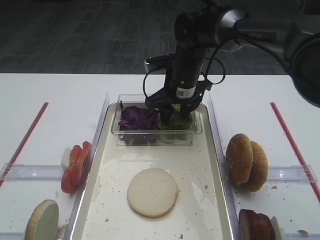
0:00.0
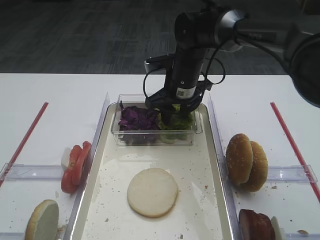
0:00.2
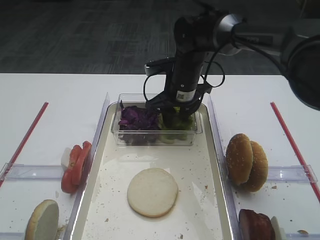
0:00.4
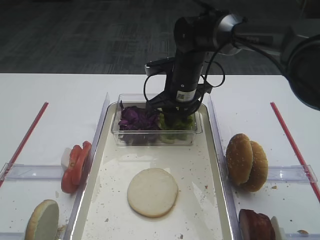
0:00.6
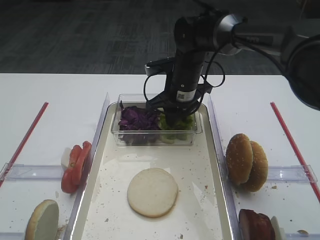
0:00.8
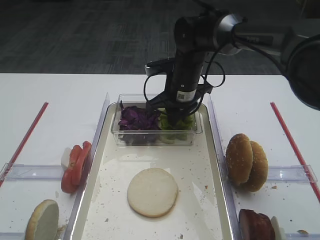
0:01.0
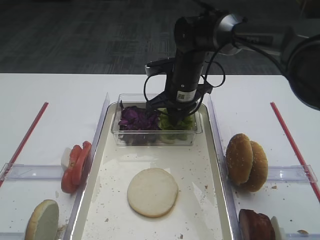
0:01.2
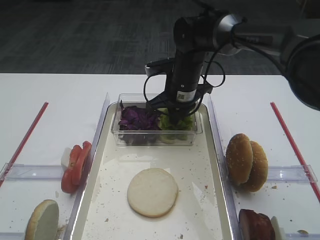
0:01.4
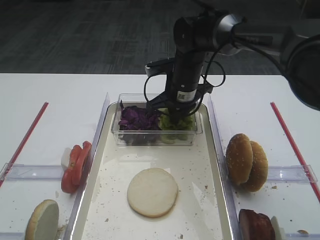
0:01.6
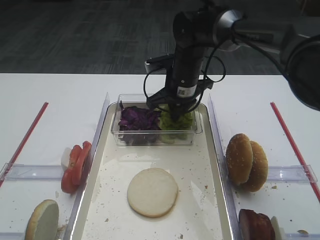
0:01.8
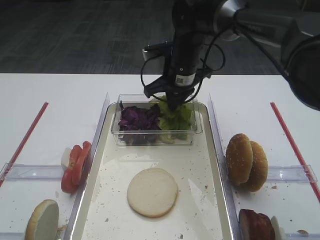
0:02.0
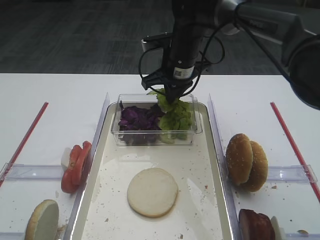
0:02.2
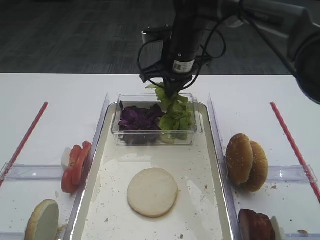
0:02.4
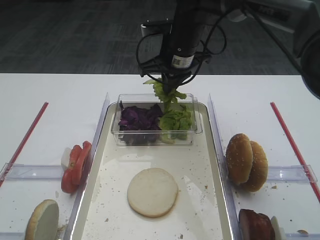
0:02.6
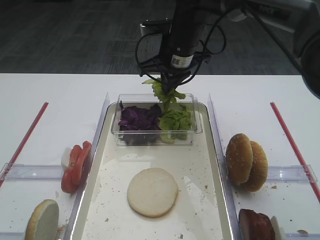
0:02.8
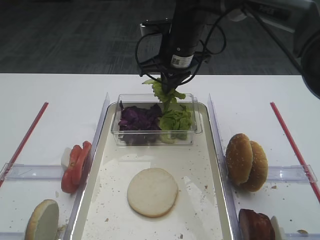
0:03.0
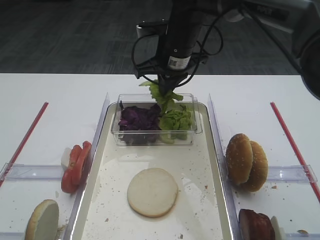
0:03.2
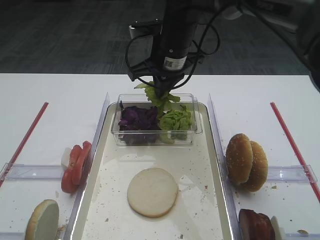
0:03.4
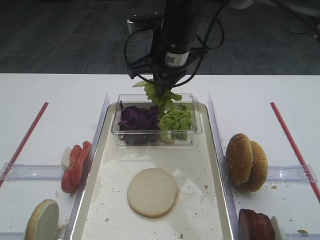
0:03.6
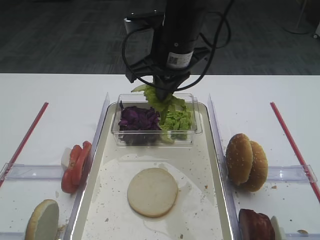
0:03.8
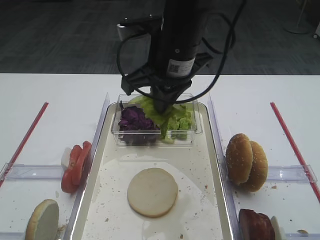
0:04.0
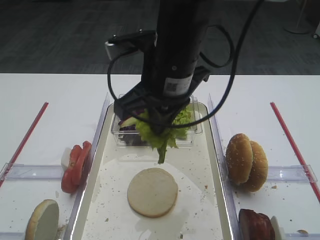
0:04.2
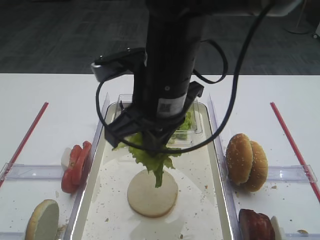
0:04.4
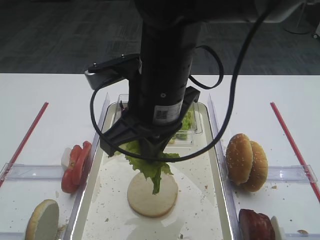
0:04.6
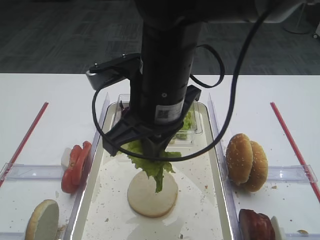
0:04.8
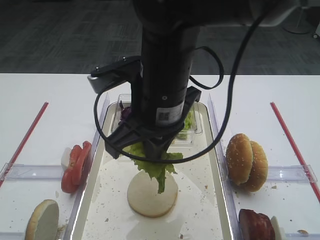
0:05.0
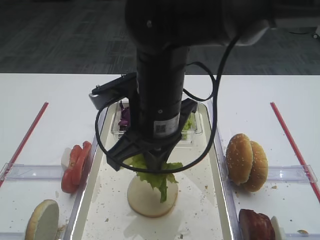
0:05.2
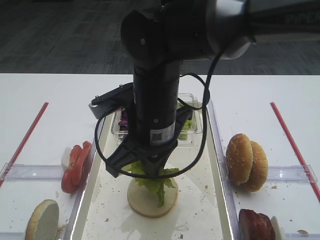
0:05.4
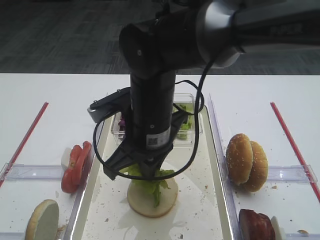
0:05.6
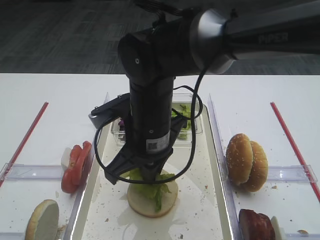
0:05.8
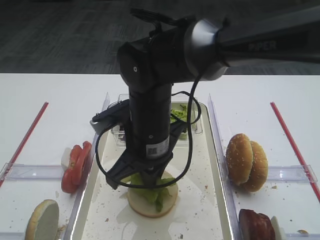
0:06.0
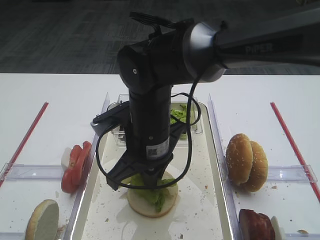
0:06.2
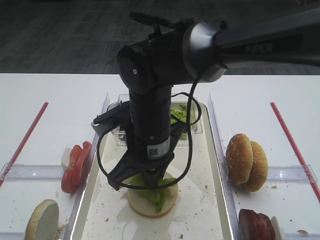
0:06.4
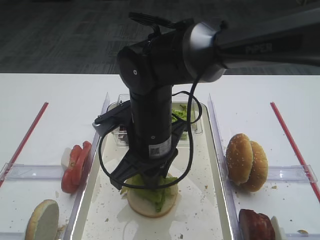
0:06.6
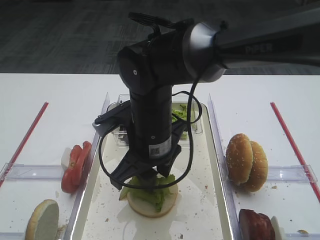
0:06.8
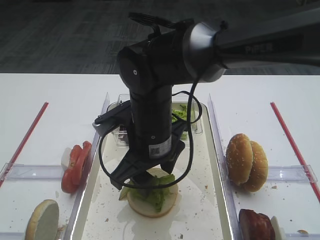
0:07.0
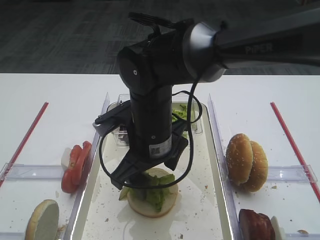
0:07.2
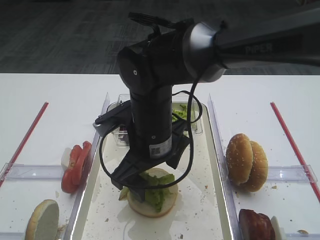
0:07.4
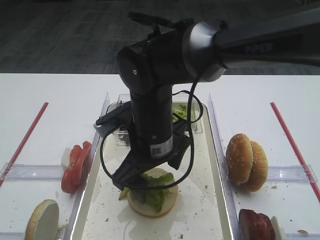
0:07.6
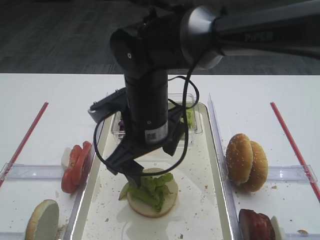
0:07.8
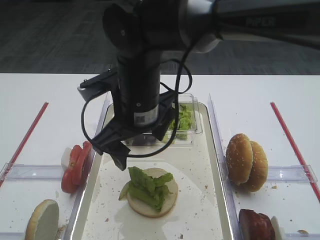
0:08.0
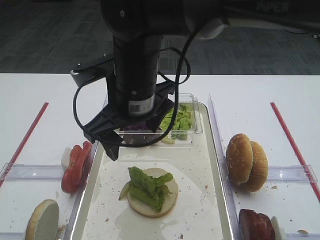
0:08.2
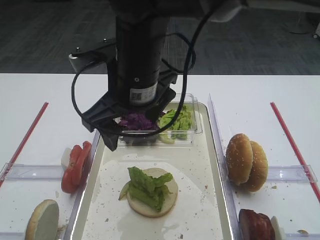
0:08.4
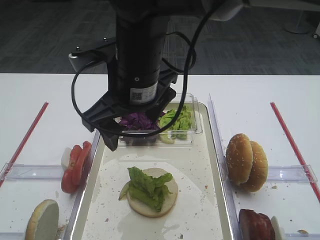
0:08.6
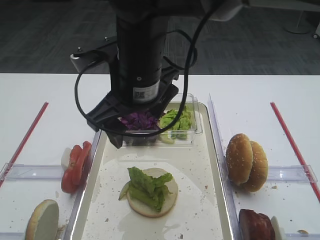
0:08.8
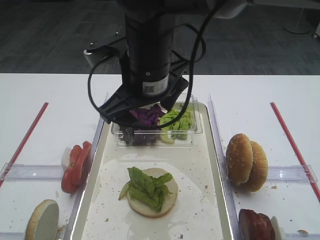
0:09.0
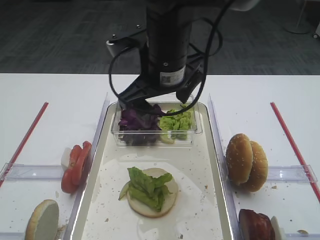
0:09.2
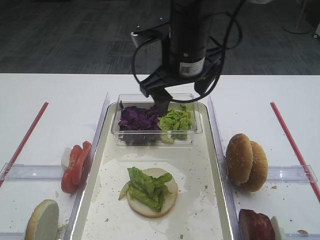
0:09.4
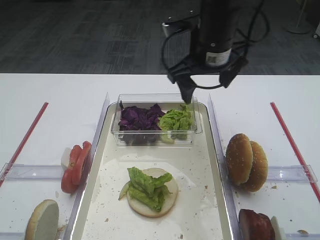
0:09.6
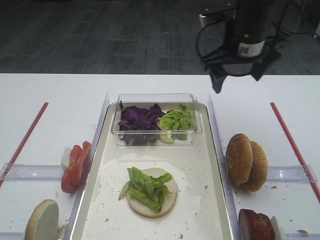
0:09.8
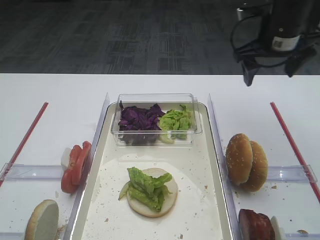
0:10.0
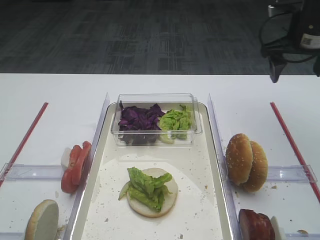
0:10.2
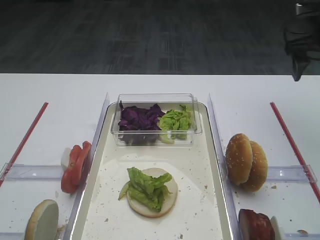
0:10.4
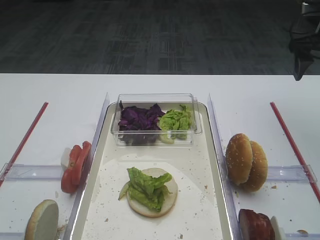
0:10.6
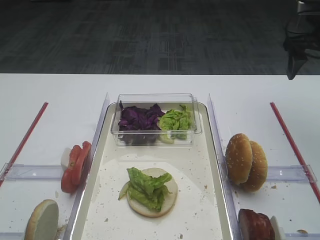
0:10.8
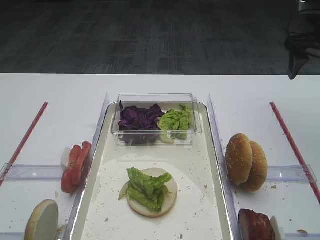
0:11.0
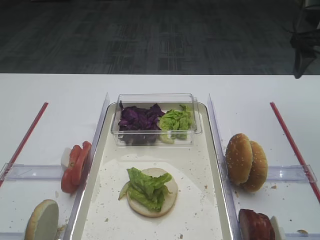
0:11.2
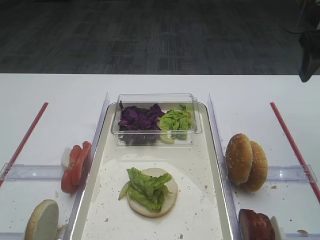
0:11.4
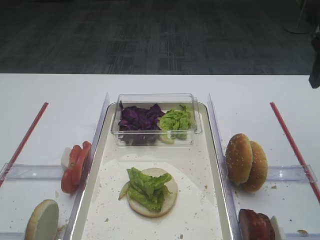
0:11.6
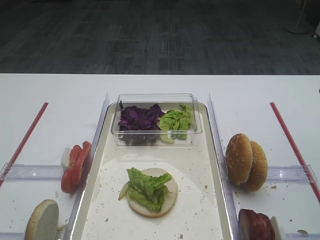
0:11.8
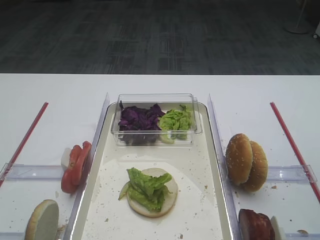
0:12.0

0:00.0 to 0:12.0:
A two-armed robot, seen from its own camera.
Step, 0:00.0 to 0:02.4: Pick up the lettuce leaf with the right gripper.
Step, 0:02.6 to 0:07.4: Place the lettuce leaf on the bread slice with the right gripper.
0:00.0 to 0:01.6: The right gripper closes its fingers.
0:01.6 to 0:03.0: The right gripper travels upward by roughly 10 cm.
0:03.0 to 0:04.4: The right gripper shifts approximately 20 cm backward.
0:04.4 to 0:06.0: The right gripper is displaced downward by roughly 10 cm.
0:06.0 to 0:07.6: The right gripper opens up.
0:07.6 to 0:09.0: The right gripper heads upward, covering about 10 cm.
0:09.0 to 0:10.4: The right gripper is displaced to the right by roughly 30 cm.
0:10.4 to 0:12.0: The right gripper moves backward, roughly 20 cm.

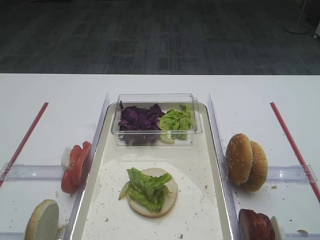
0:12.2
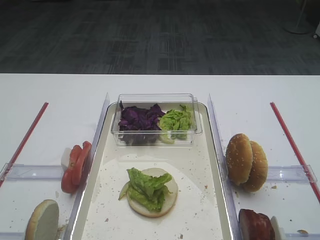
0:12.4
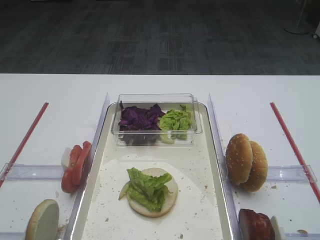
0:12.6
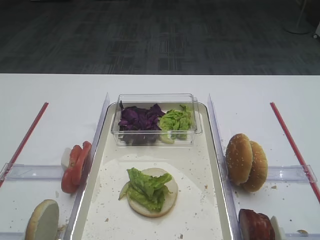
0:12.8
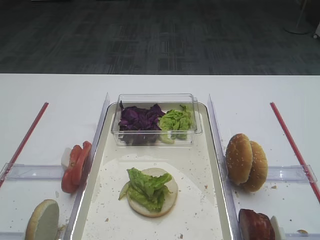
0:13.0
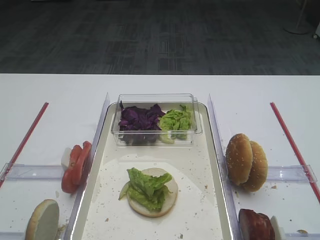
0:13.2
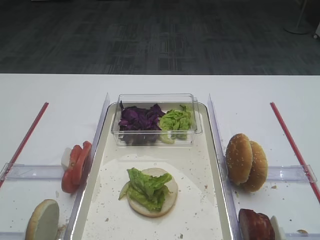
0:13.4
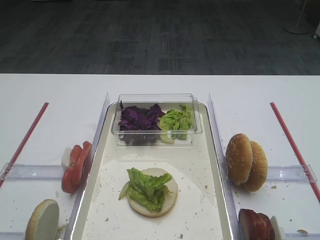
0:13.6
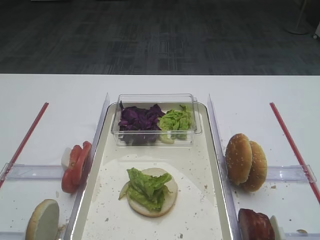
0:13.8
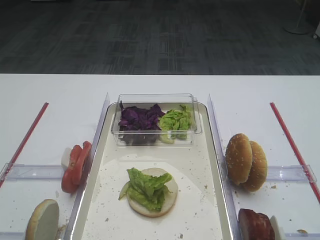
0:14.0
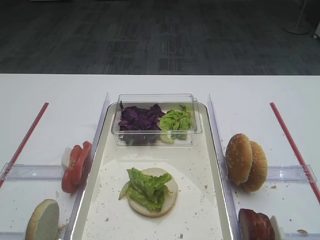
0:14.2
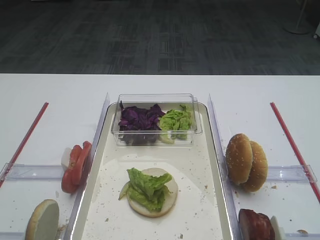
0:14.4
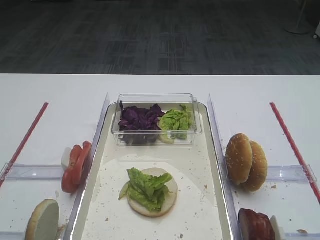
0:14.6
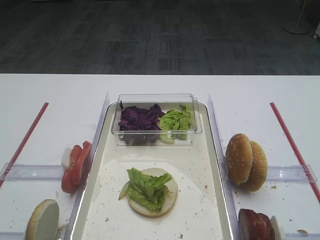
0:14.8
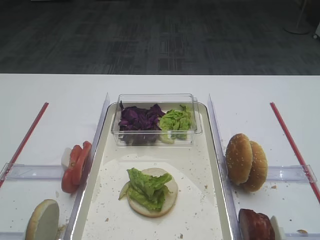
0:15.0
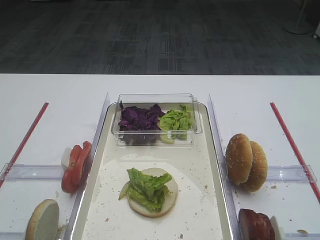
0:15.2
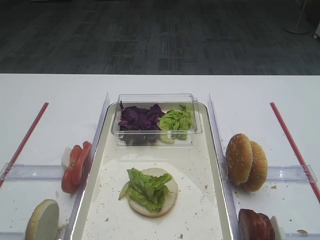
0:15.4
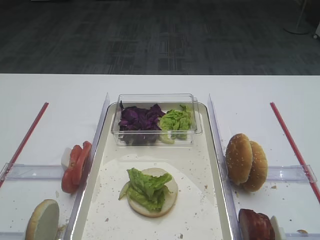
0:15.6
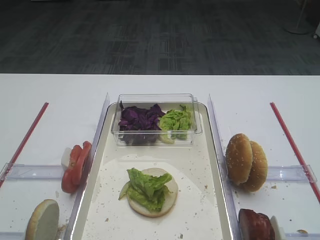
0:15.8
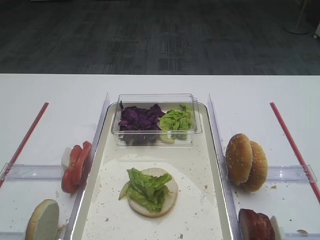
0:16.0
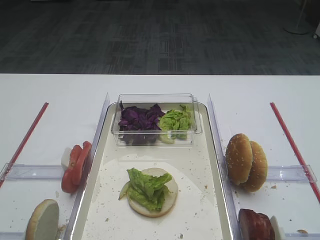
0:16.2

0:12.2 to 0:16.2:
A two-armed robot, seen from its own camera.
0:13.6 to 0:16.2: Both grippers stay about where they are.

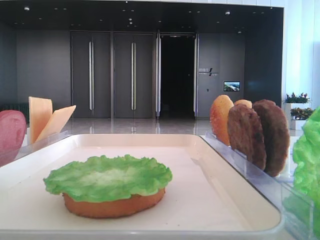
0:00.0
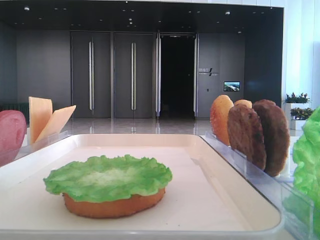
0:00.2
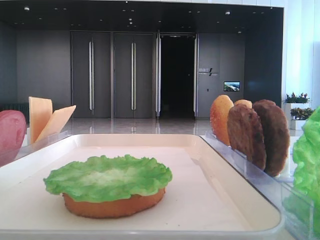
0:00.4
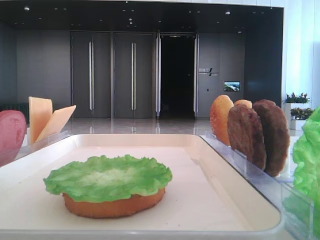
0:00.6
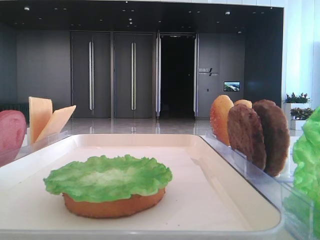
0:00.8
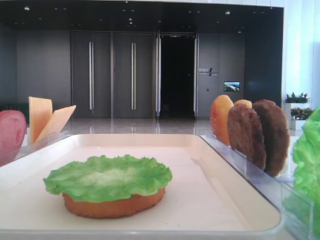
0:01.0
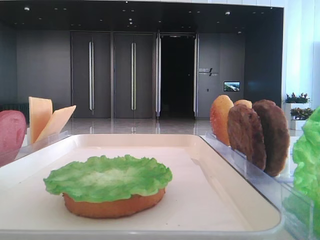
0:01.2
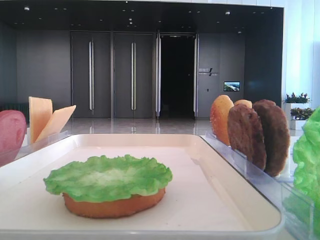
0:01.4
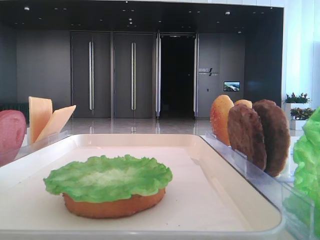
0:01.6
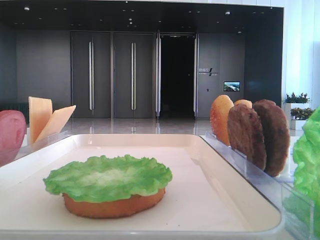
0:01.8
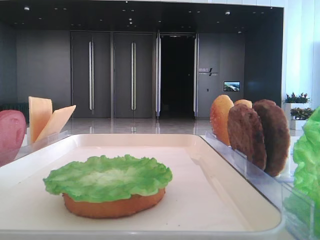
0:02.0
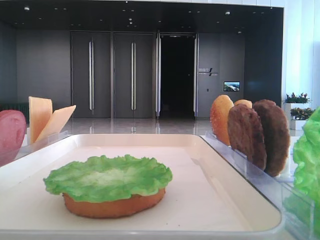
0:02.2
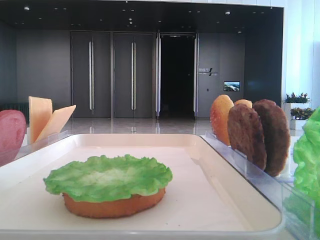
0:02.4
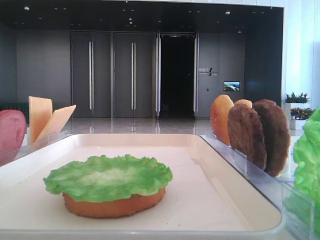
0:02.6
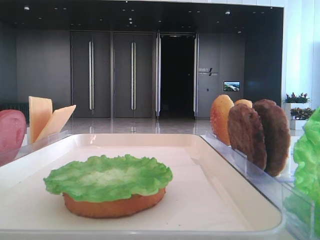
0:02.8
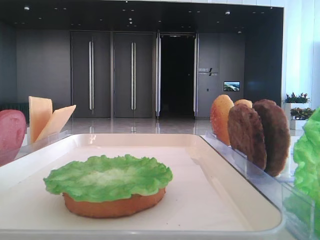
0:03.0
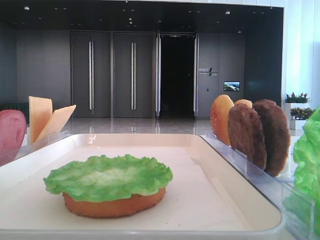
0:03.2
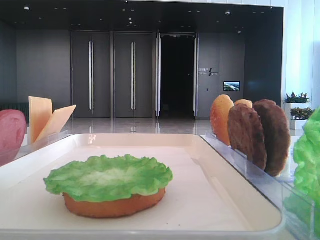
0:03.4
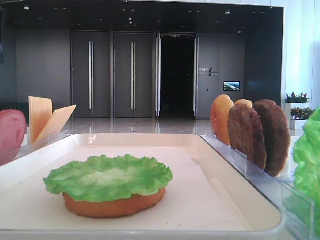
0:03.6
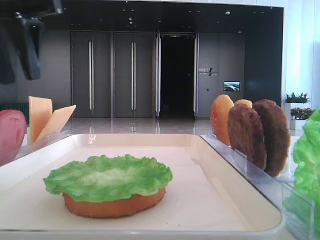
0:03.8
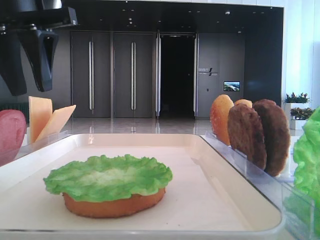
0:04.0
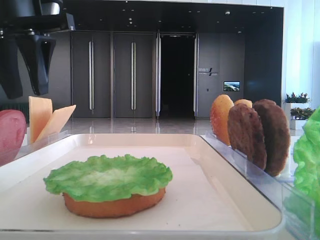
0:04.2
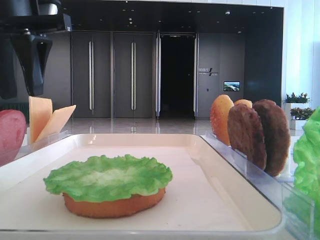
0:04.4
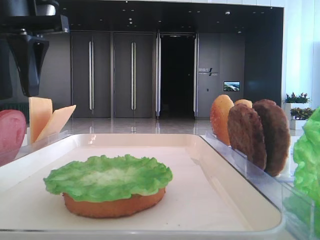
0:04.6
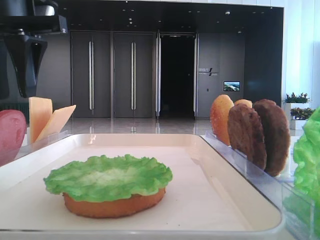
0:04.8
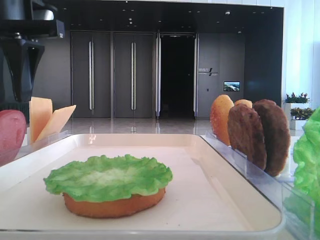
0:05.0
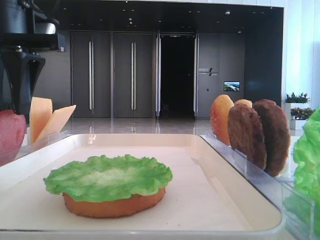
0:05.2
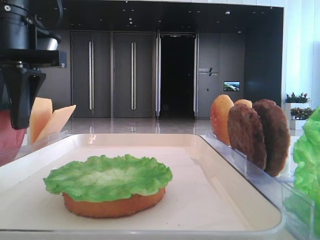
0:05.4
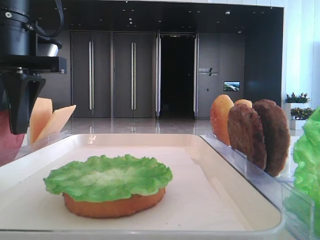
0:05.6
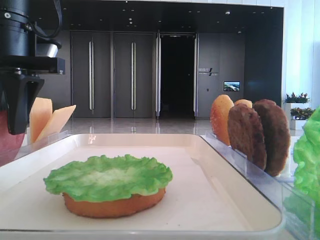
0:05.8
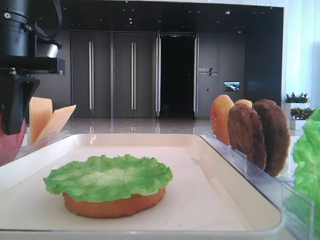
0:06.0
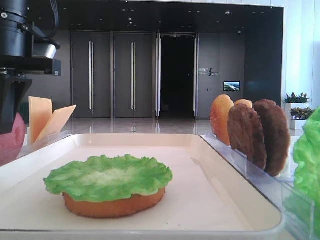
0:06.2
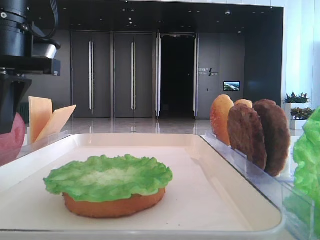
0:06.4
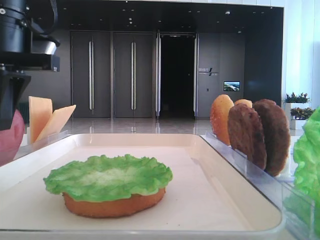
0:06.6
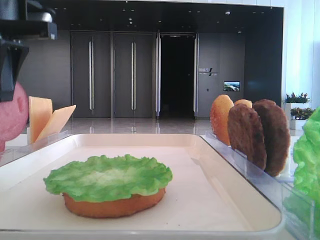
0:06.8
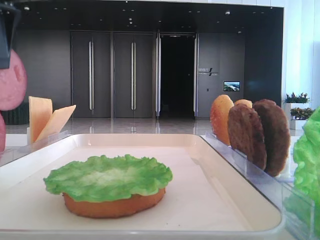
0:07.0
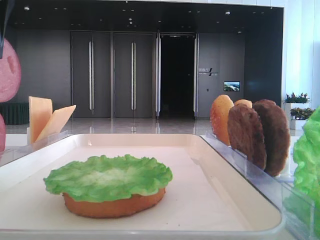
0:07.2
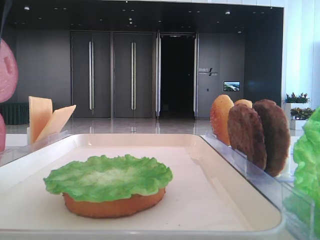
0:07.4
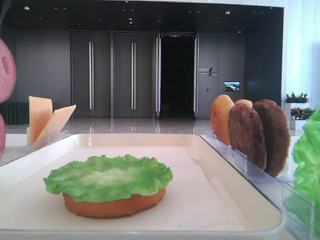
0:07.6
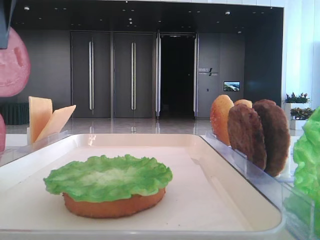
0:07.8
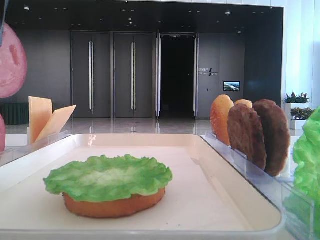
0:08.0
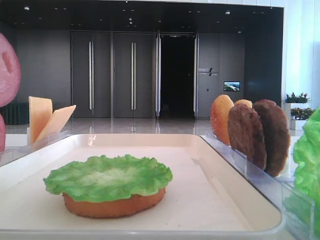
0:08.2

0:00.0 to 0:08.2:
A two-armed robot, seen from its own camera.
Step, 0:00.0 to 0:06.4: Pick up the tomato slice with the left hand.
0:03.2 to 0:05.0: The left gripper shifts roughly 15 cm to the right and downward.
0:05.0 to 0:06.6: The left gripper closes up.
0:06.6 to 0:08.2: The left gripper goes roughly 10 cm backward and upward.
